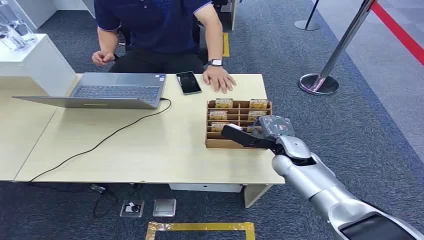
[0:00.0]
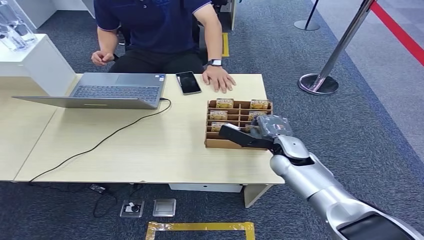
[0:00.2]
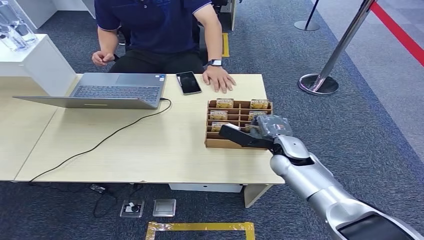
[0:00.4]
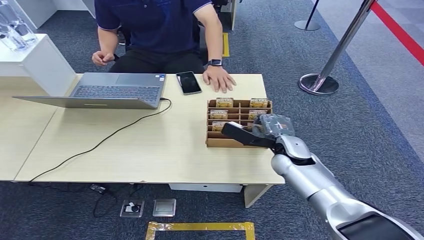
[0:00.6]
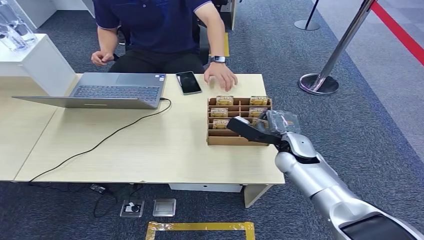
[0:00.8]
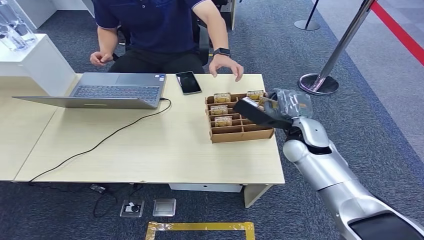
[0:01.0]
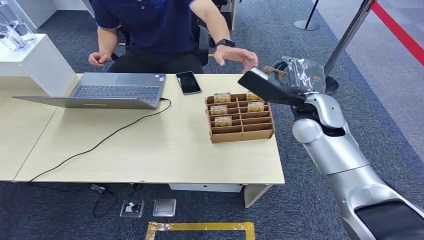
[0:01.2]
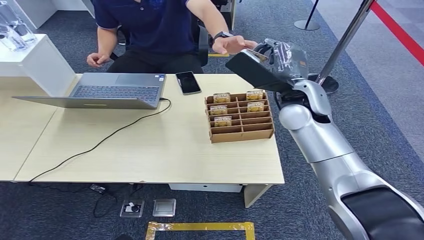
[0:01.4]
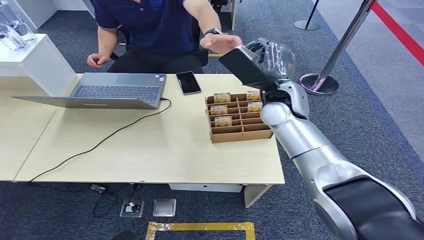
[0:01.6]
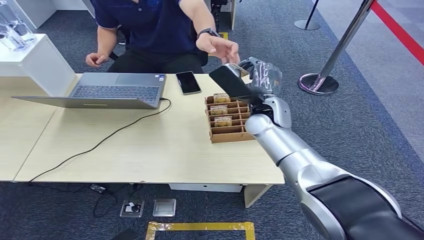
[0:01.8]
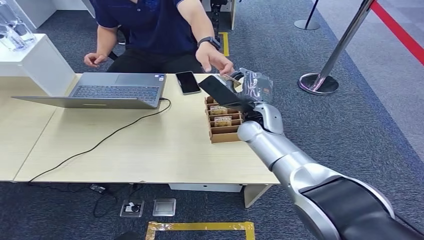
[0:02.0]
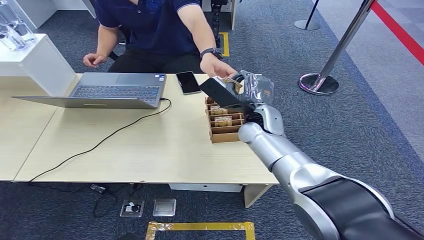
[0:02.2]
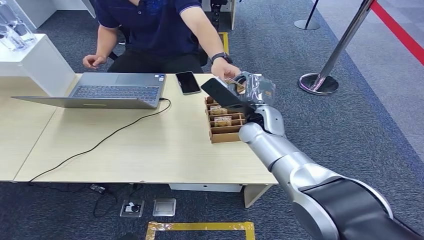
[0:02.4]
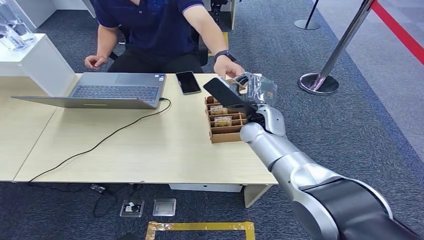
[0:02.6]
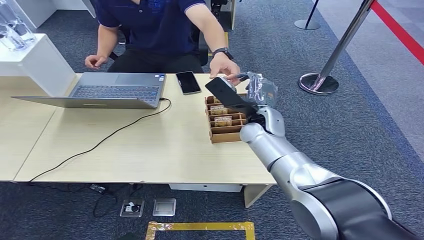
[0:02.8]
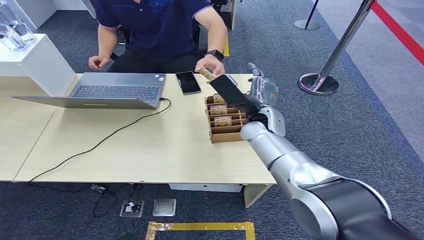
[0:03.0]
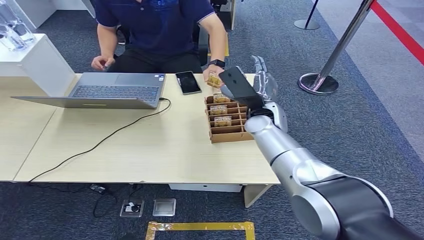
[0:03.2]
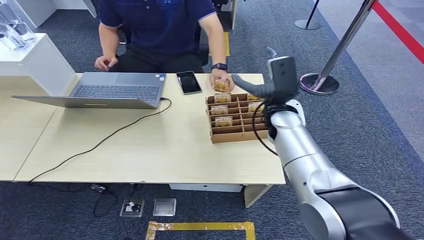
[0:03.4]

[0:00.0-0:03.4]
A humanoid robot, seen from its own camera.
Step, 0:00.0 to 0:01.6: Pick up the room card from the card holder.
Step, 0:01.8 to 0:03.4: Hand the room card to the target.
0:01.6 to 0:03.4: The right hand travels downward by approximately 5 cm.
